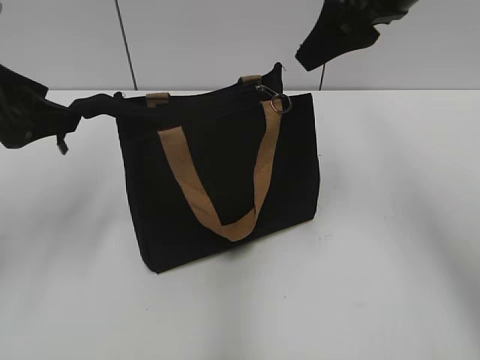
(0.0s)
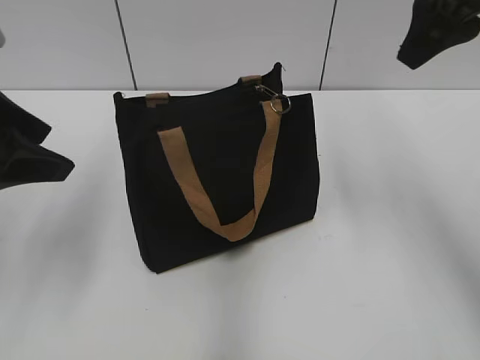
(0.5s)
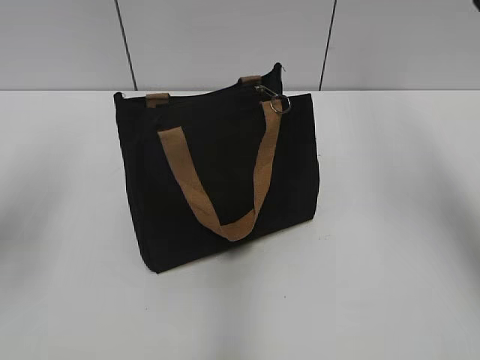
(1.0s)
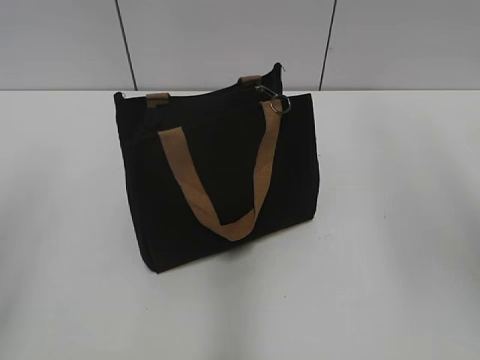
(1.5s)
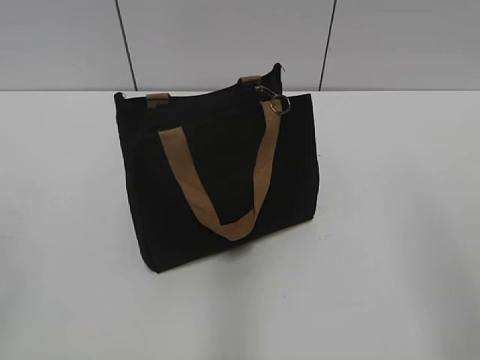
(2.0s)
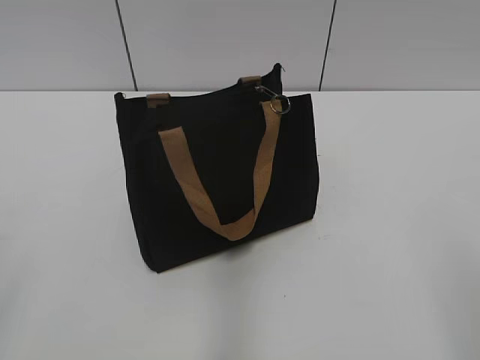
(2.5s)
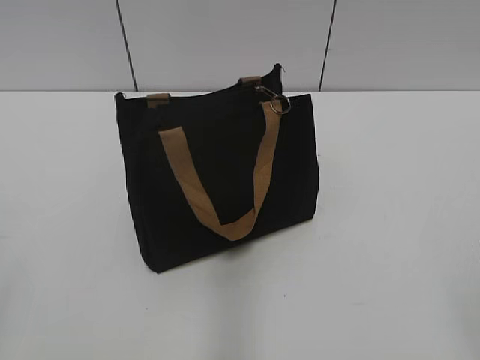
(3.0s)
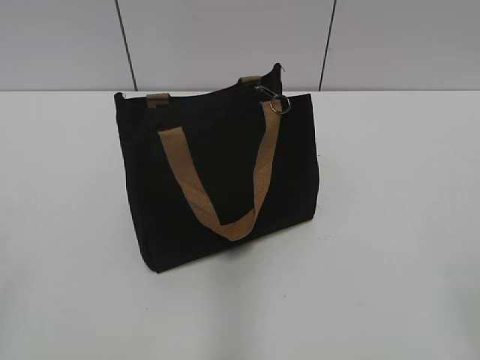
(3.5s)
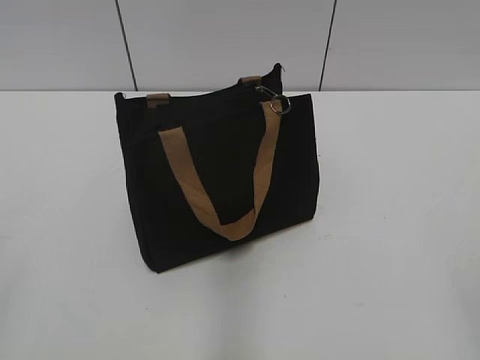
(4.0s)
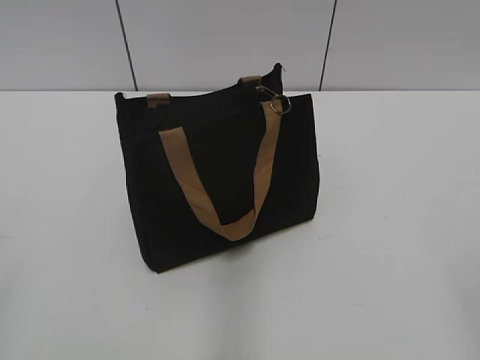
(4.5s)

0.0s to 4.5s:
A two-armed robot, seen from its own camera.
0.0s to 2.0s: The right gripper is displaced backward and to the right by roughly 25 cm; the left gripper shifts approximately 20 cm backward.

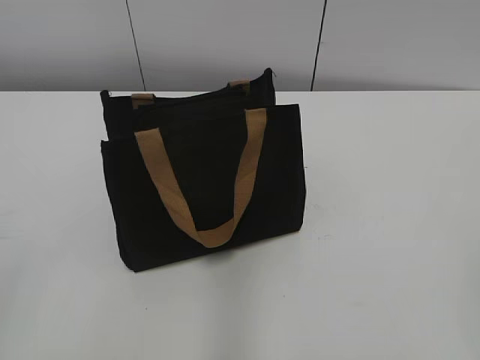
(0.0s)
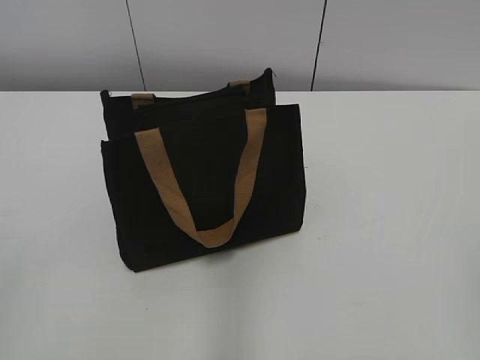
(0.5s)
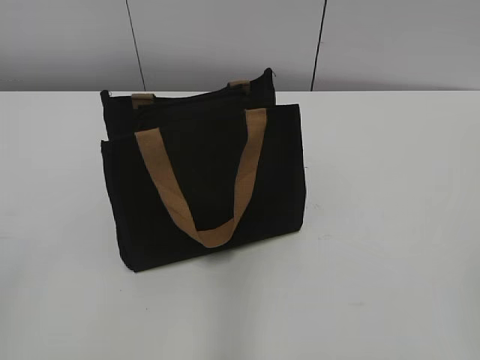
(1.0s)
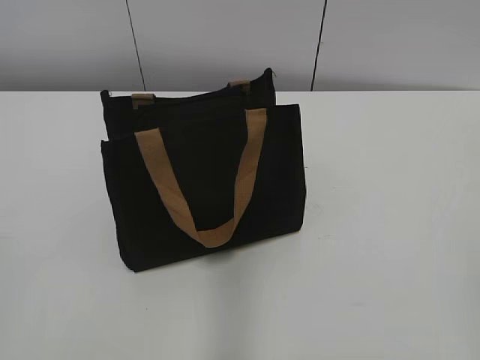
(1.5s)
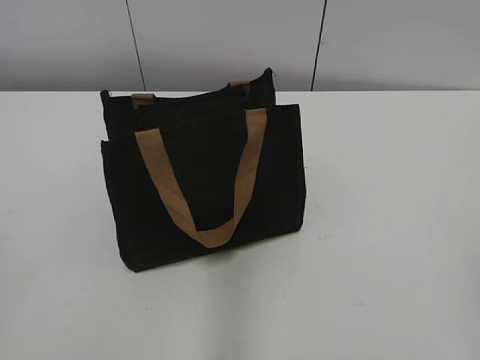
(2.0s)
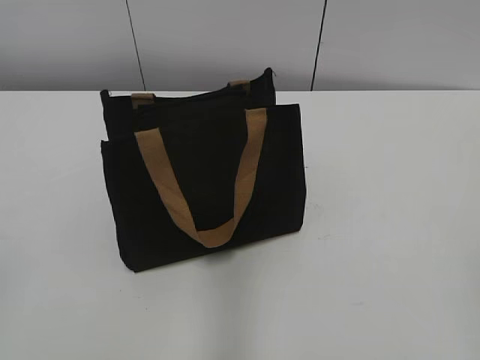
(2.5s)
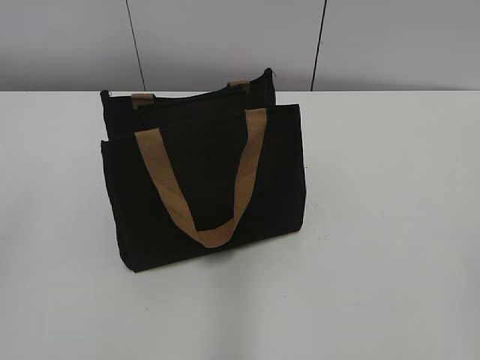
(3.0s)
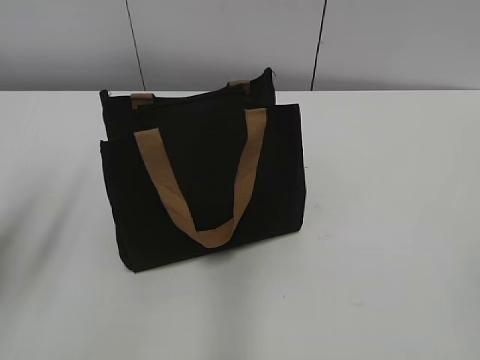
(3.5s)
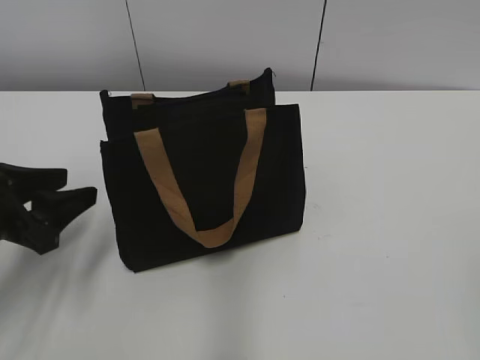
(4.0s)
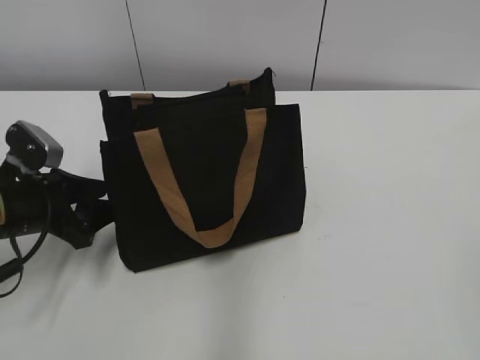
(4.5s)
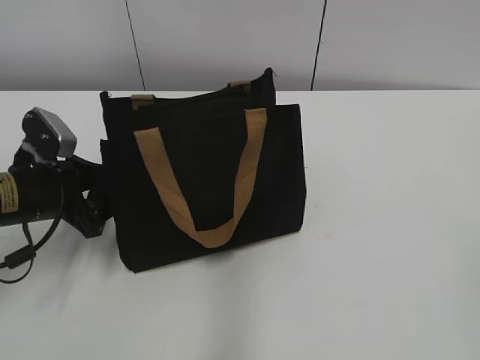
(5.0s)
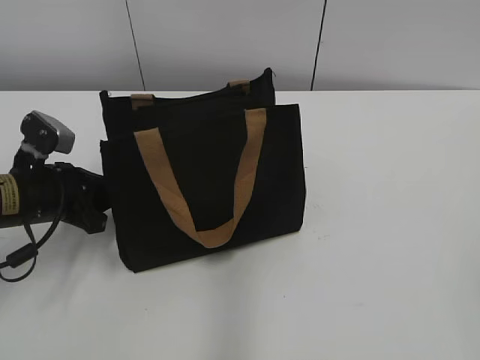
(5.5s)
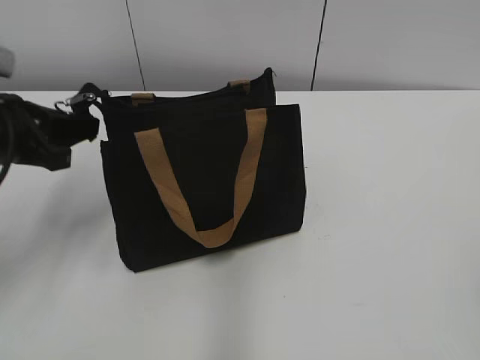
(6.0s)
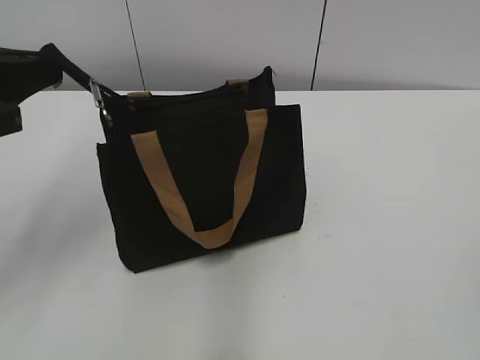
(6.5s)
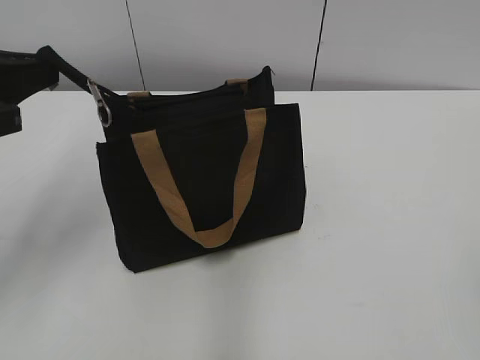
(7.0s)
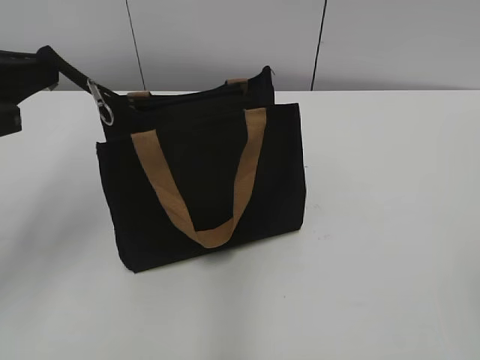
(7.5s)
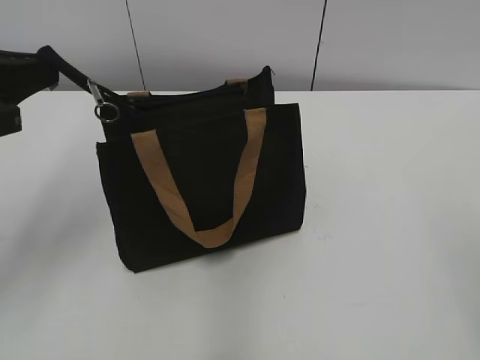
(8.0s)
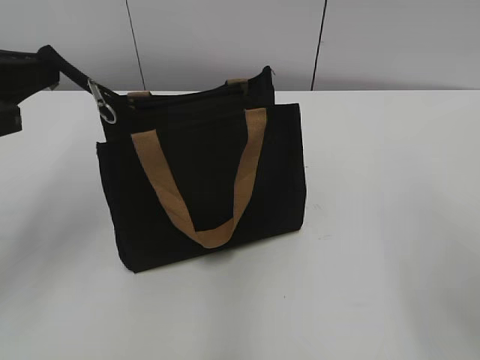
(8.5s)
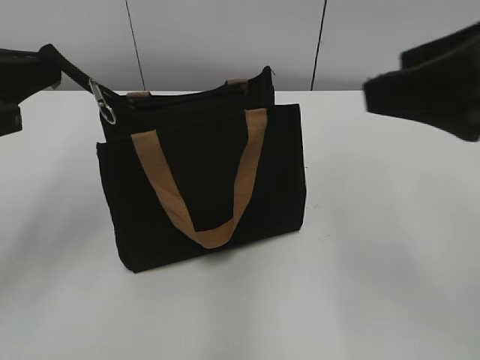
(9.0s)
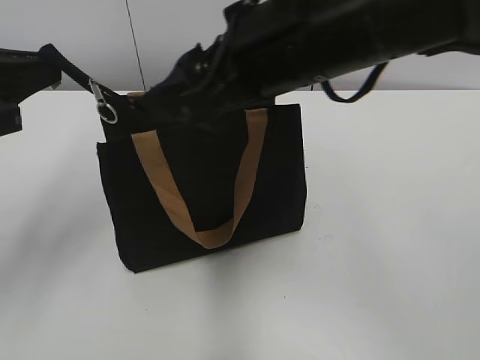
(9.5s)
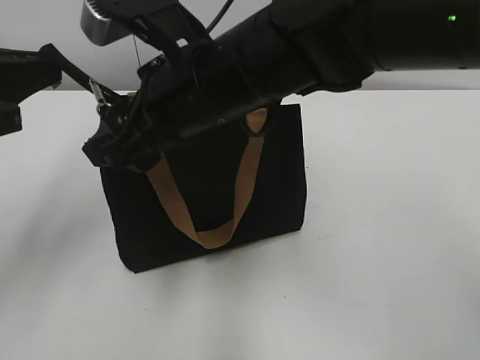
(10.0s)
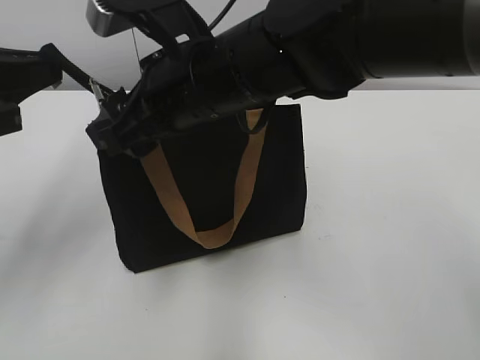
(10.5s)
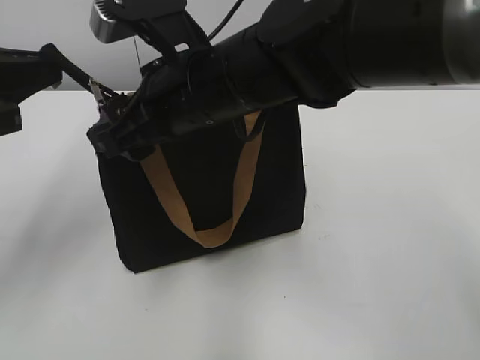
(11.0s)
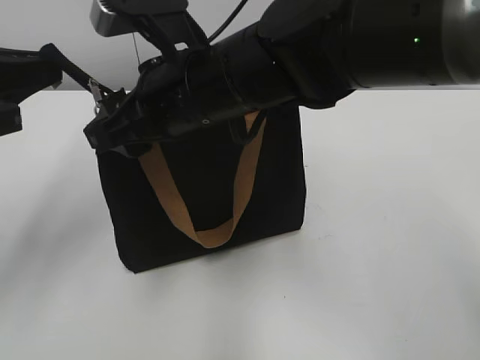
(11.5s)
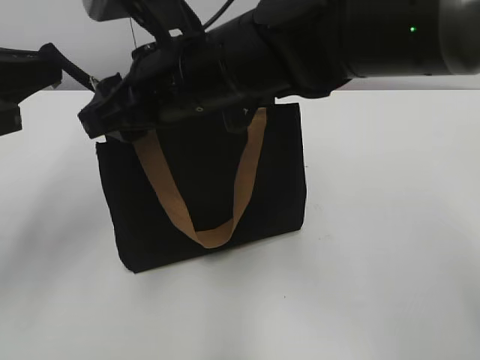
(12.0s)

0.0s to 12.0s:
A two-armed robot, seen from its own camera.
2.0s to 4.0s: The left gripper shifts about 25 cm forward and downward, and opens its fingers.
4.0s to 6.0s: The left gripper shifts approximately 5 cm forward, and closes up.
6.0s to 8.0s: The left gripper is displaced upward by some 10 cm.
8.0s to 10.0s: The right gripper moves to the left and forward, some 40 cm.
10.0s to 12.0s: The grippers move only a little.

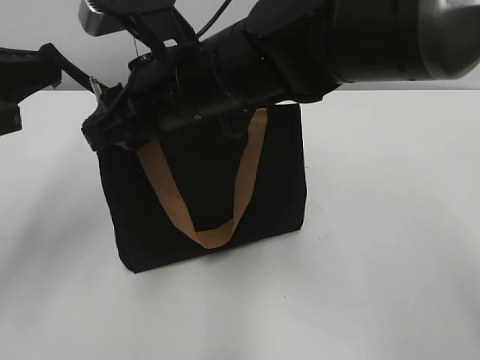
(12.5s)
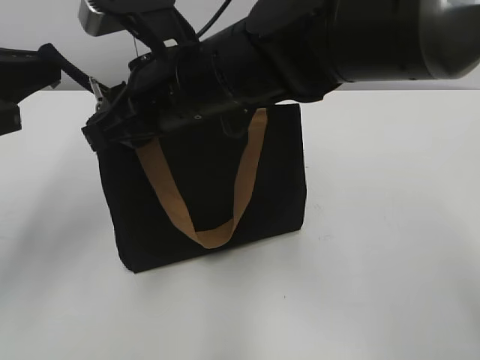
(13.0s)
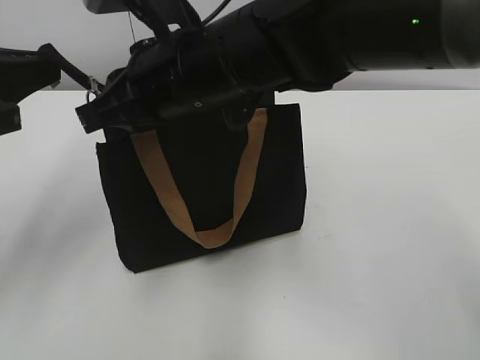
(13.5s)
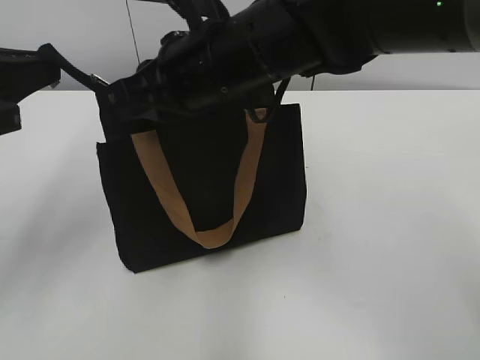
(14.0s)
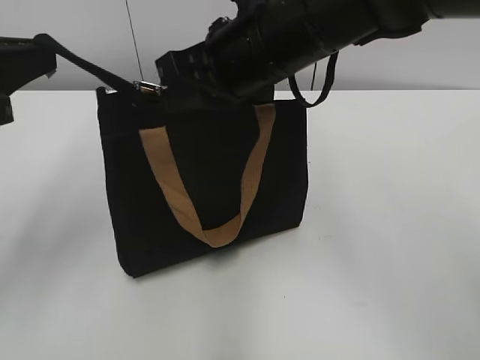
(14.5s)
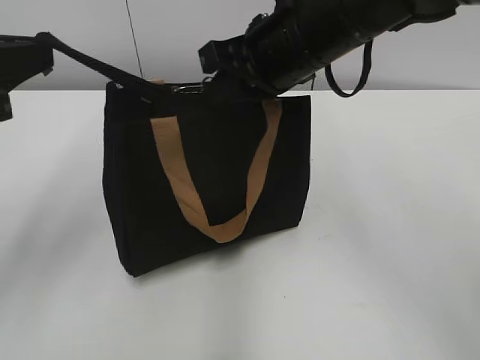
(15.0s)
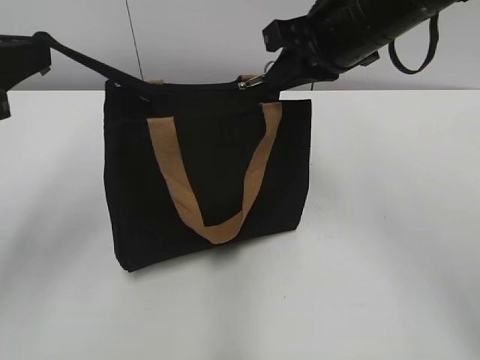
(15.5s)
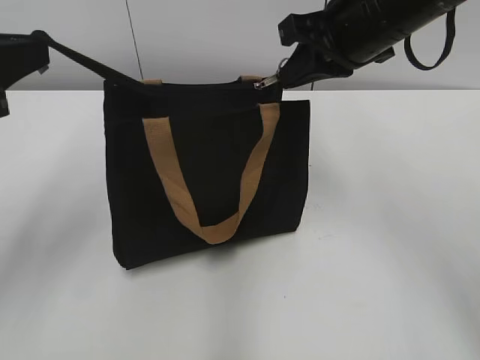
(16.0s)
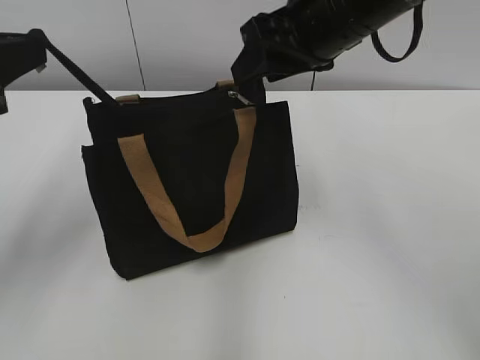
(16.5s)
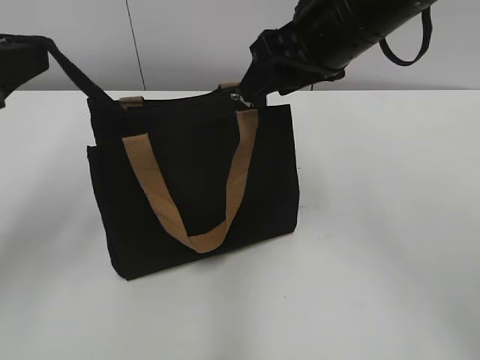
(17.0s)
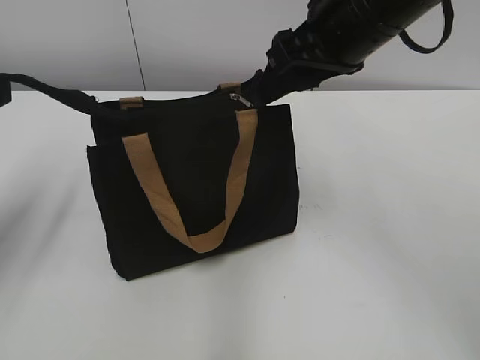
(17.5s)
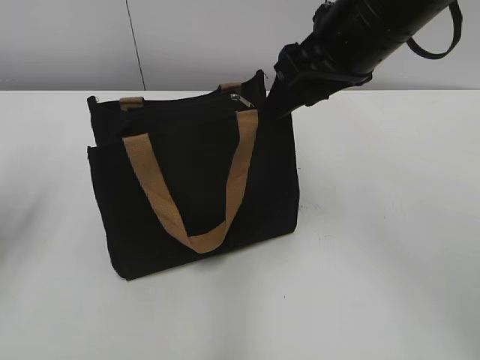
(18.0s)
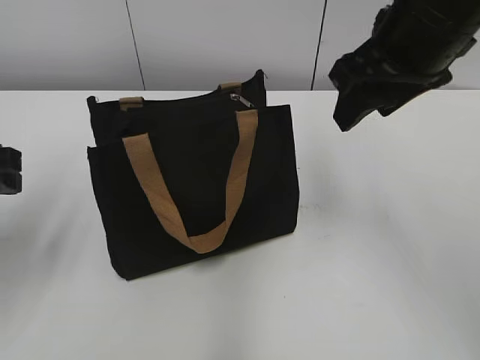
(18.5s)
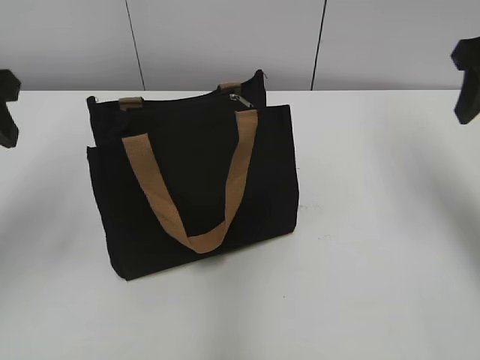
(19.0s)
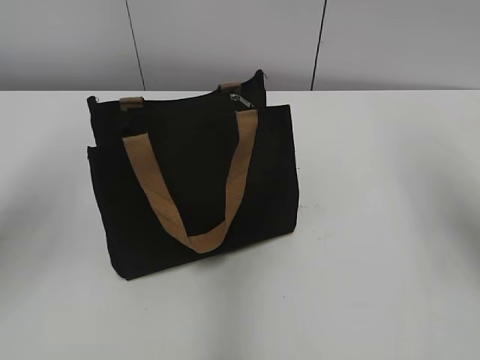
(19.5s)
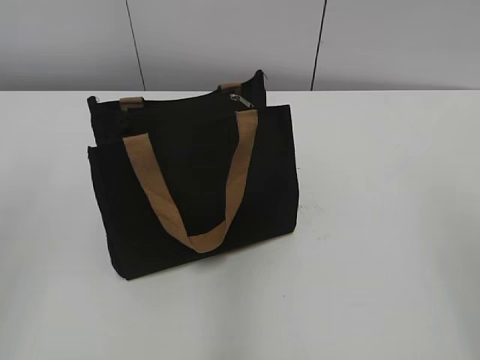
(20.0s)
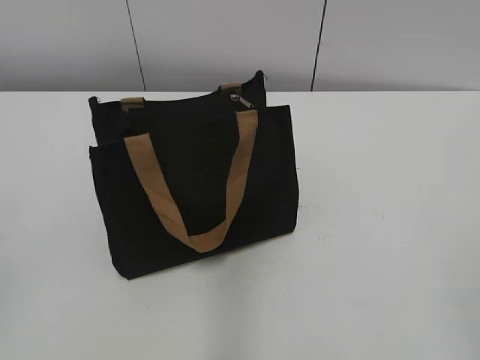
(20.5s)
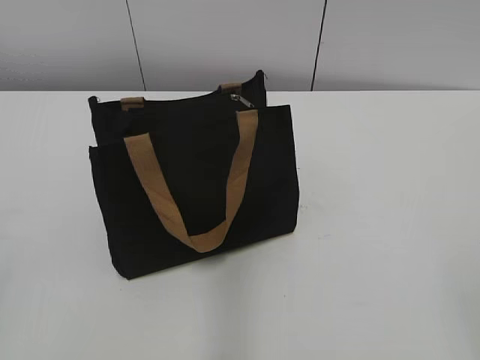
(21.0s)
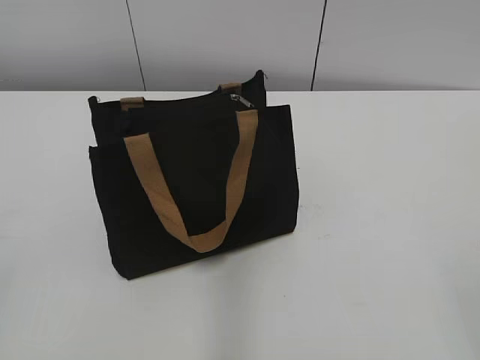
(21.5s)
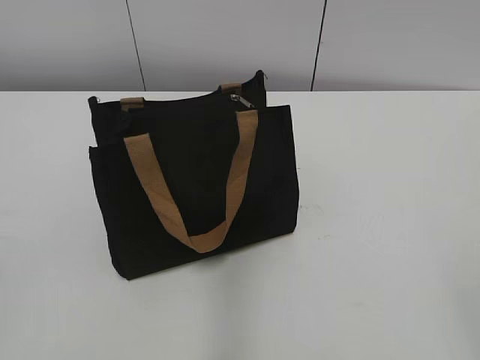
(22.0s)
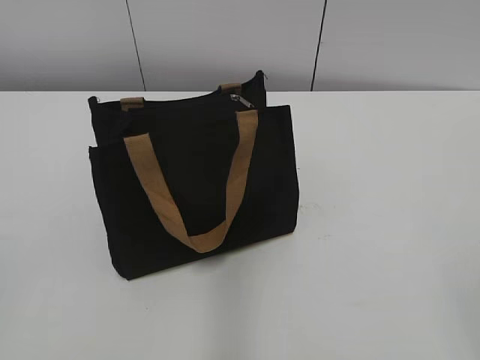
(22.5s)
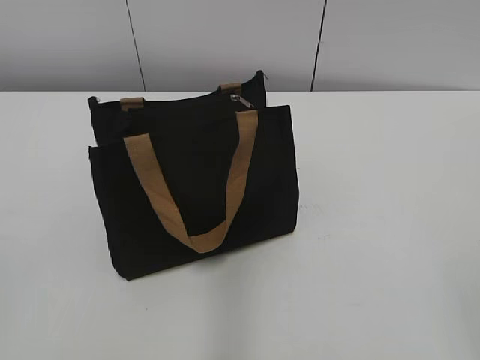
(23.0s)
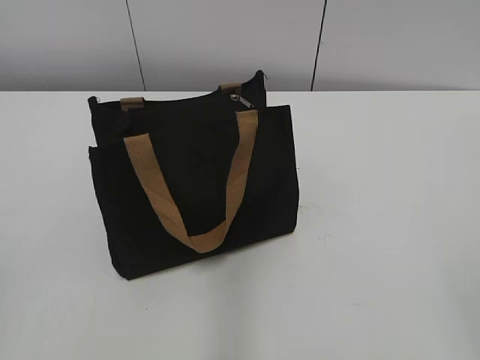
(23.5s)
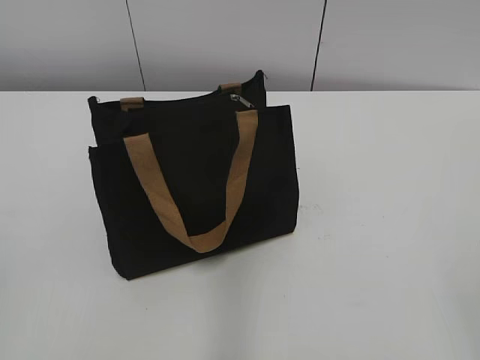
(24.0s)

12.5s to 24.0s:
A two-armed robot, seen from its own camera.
Step, 12.5s to 16.5s: Zip up the bag with your right hand.
Step, 17.0s to 17.5s: Grab the zipper with your left hand.
12.5s to 14.5s: The right gripper shifts roughly 5 cm to the right, and closes up.
14.5s to 16.5s: The right gripper travels to the right by approximately 5 cm, and opens its fingers.
16.5s to 18.5s: The right gripper ends up roughly 5 cm from where it was, while the left gripper moves downward, about 5 cm, and opens its fingers.
18.5s to 20.0s: The right gripper is displaced backward and to the right by approximately 20 cm. Meanwhile the left gripper moves upward and backward, some 15 cm.
